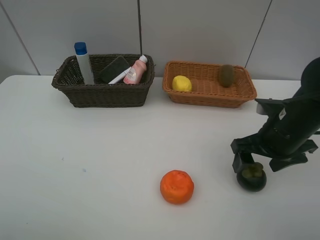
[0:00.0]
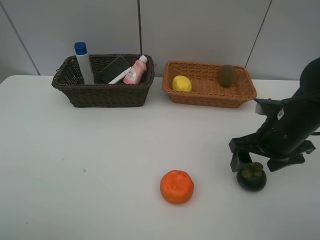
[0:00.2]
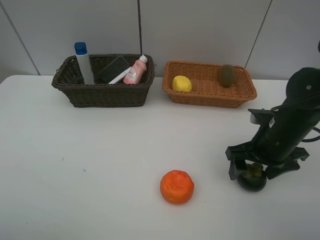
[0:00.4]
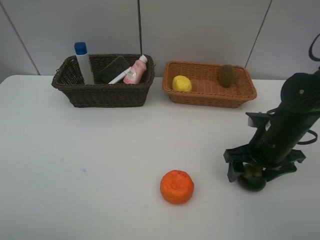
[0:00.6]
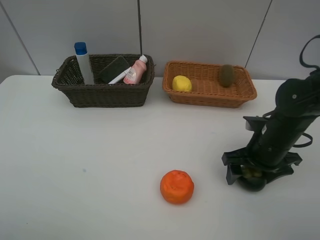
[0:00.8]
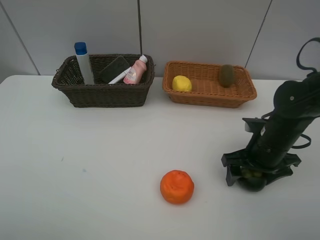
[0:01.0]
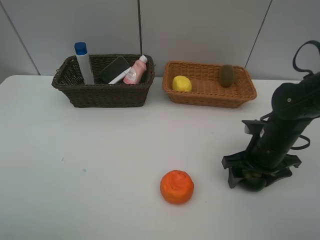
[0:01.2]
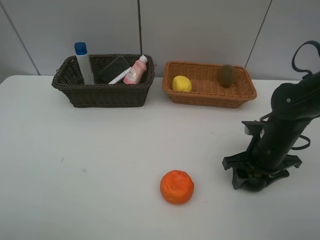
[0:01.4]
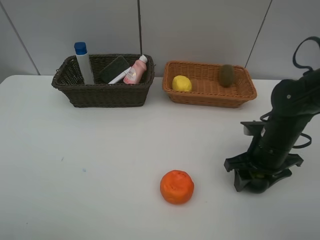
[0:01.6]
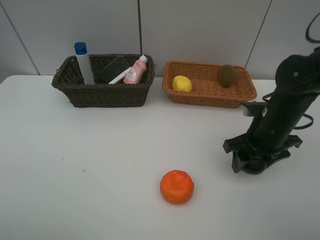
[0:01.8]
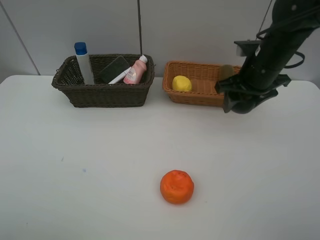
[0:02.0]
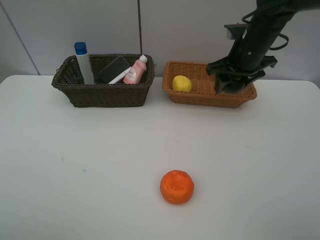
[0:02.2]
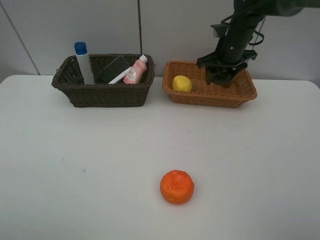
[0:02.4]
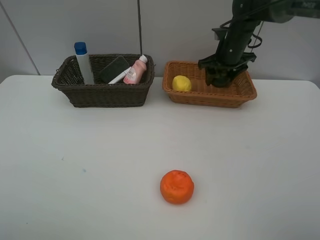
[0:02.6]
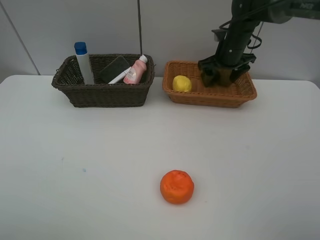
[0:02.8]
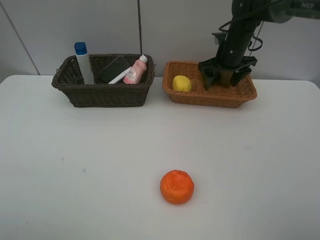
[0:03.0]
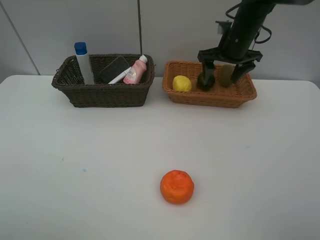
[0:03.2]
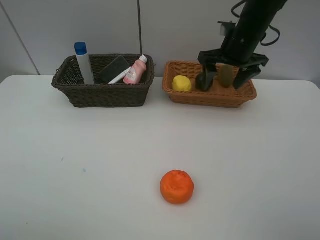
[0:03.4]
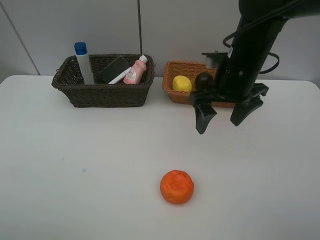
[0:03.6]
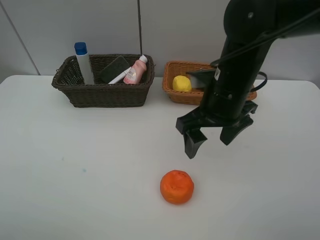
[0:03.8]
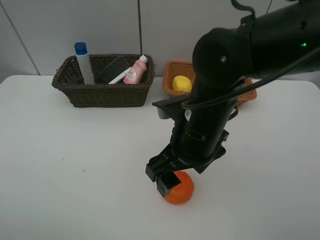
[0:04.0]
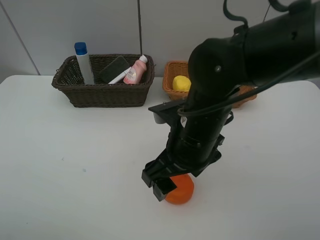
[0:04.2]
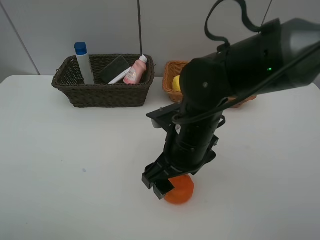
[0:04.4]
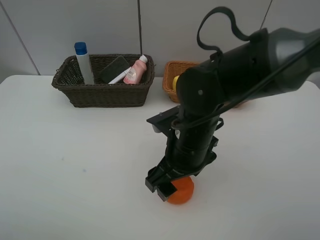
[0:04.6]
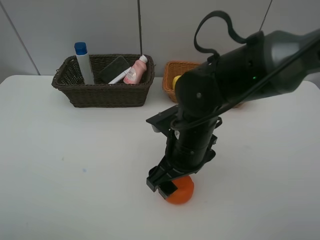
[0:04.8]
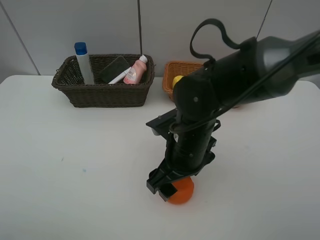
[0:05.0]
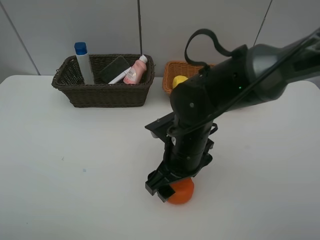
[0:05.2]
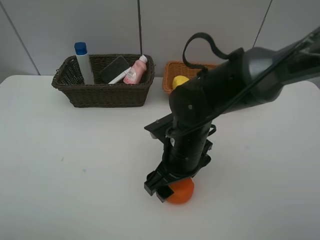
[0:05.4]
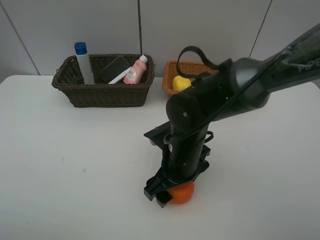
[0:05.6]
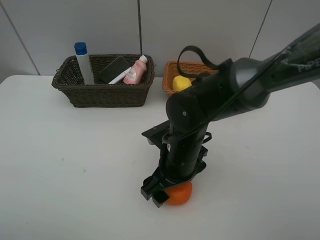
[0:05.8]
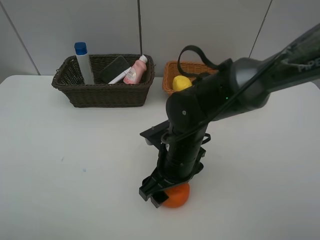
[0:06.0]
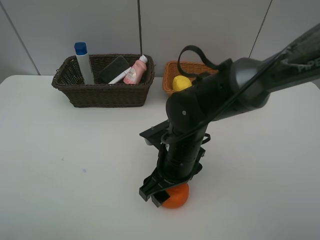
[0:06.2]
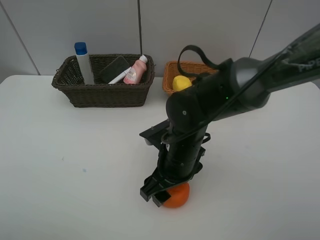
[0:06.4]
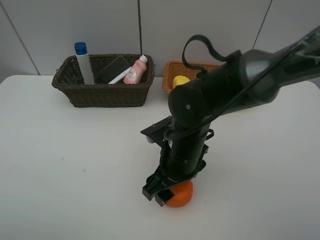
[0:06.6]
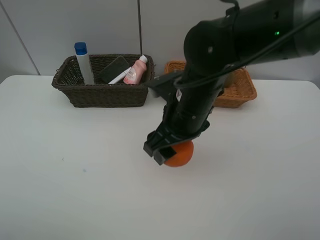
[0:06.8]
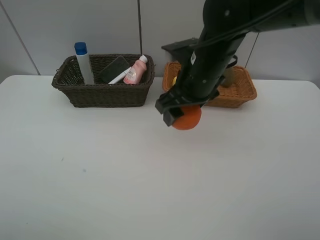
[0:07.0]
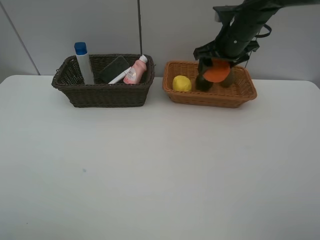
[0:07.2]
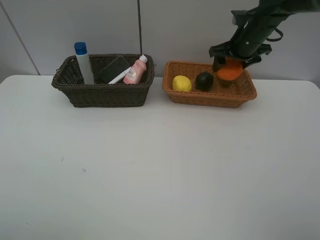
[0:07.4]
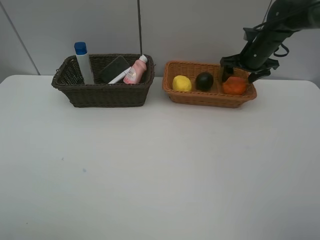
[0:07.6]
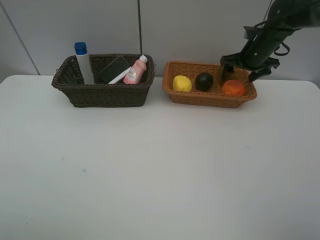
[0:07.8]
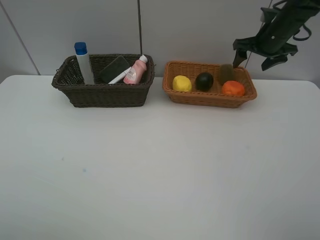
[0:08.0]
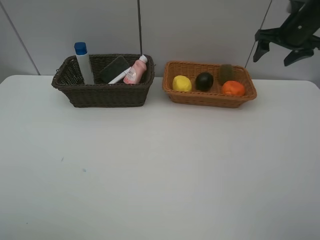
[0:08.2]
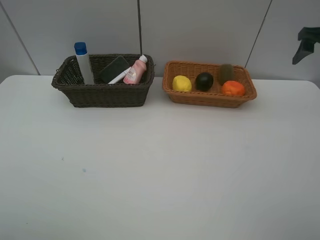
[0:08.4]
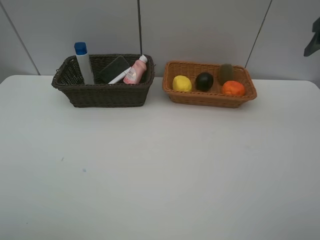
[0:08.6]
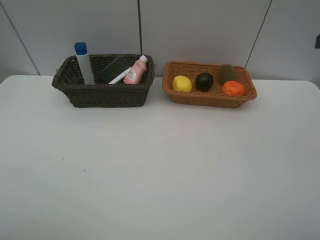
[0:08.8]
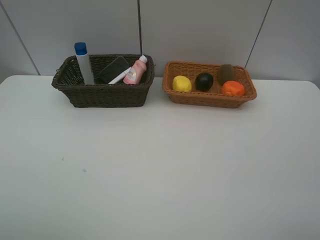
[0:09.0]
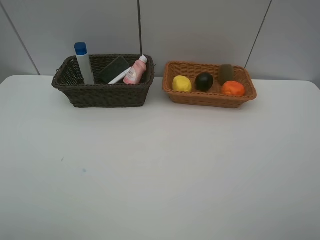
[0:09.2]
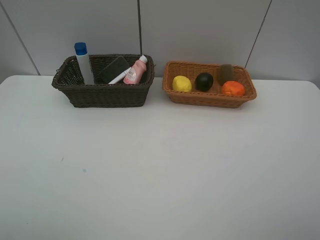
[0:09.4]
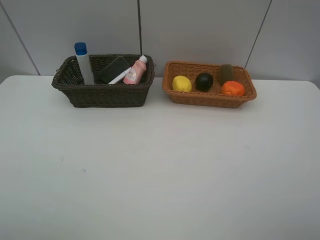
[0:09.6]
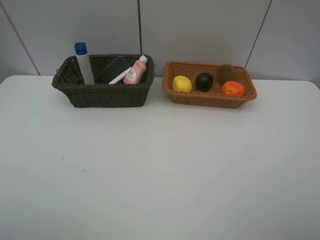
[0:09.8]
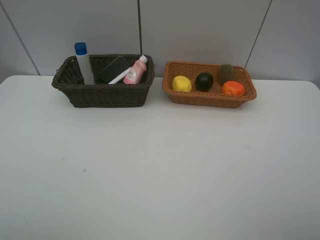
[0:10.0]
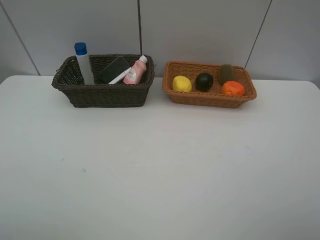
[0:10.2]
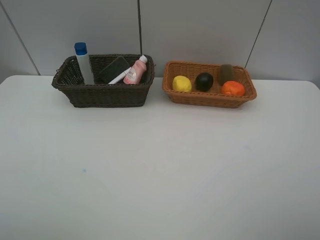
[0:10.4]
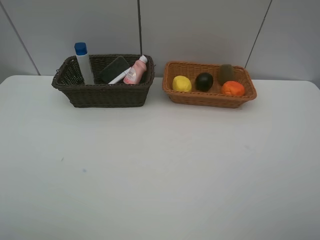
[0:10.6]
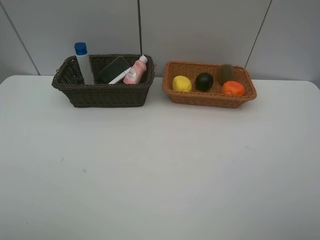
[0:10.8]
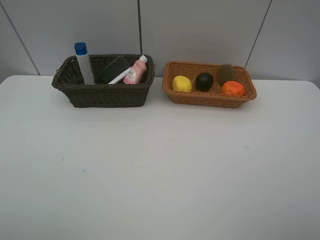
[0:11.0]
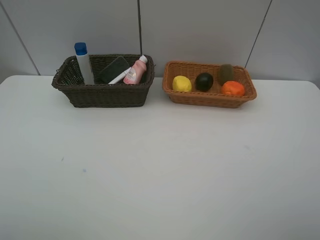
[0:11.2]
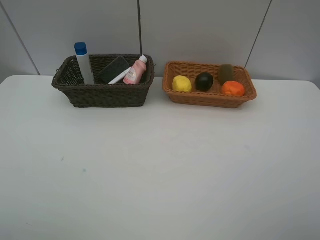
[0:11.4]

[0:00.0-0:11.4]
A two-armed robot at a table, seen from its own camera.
Task of the whole recording: Place multiple objects separately in different baskets.
Step, 0:00.0 to 0:01.8: Pick up the mangosteen with right gripper.
Step, 0:02.0 to 0:03.2: Place the mangosteen in the light basket with right gripper.
Step, 0:03.4 to 0:06.6: Pick up the orange with right gripper.
Step, 0:06.8 to 0:07.8: Place the orange in the light basket with right gripper.
0:00.0 to 0:01.4: The right gripper shifts about 5 cm downward, and closes its fingers.
0:01.4 to 0:02.8: The right gripper goes about 25 cm forward, and opens.
0:02.8 to 0:04.2: The right gripper heads backward and to the left, covering approximately 30 cm.
0:04.2 to 0:05.6: The right gripper shifts roughly 5 cm downward.
0:05.6 to 0:07.2: The right gripper heads forward, to the right and upward, covering some 30 cm, and closes.
0:07.2 to 0:08.6: The right gripper moves to the right, backward and upward, roughly 25 cm, and opens its fingers.
0:10.0 to 0:11.4: Both grippers stay put.
